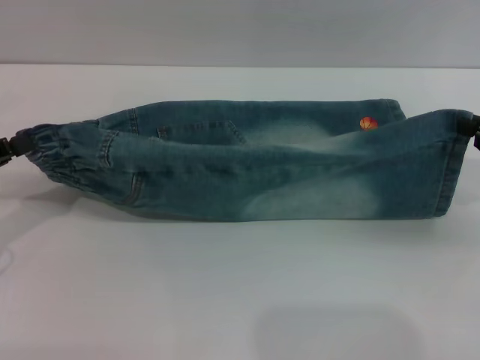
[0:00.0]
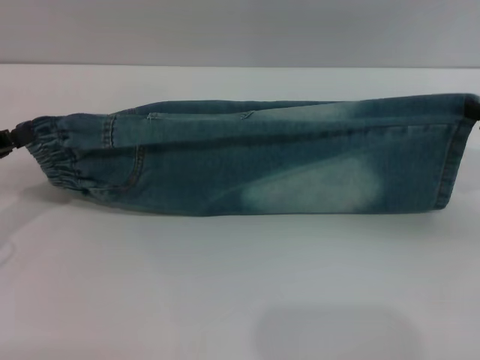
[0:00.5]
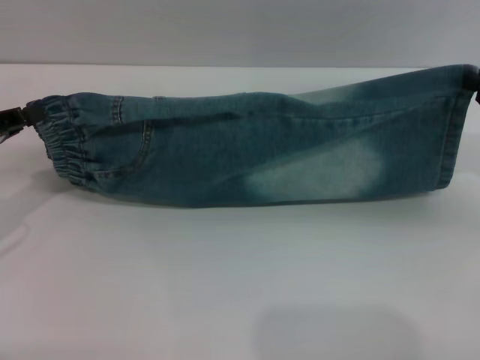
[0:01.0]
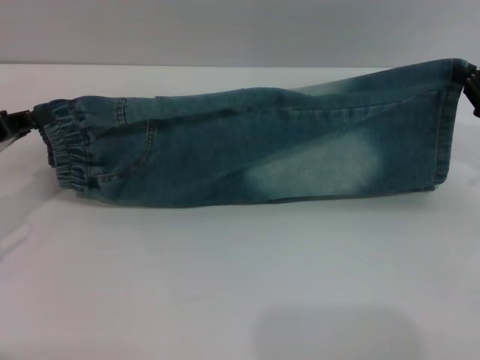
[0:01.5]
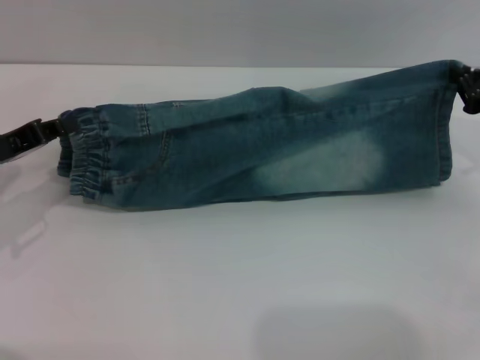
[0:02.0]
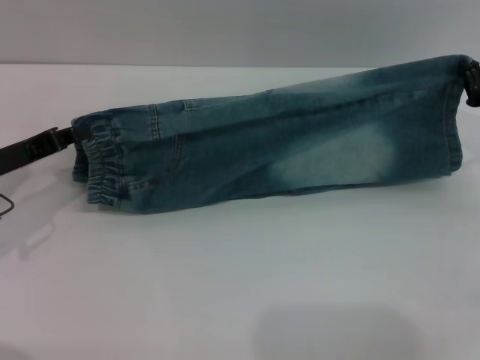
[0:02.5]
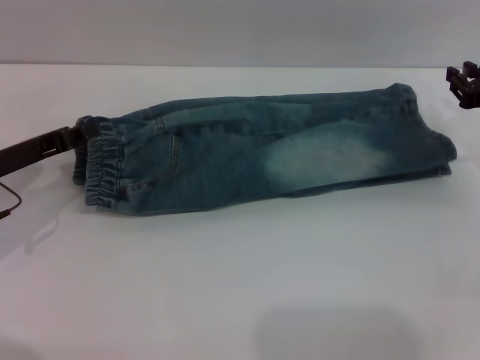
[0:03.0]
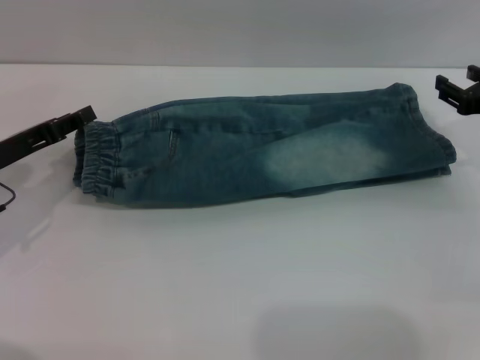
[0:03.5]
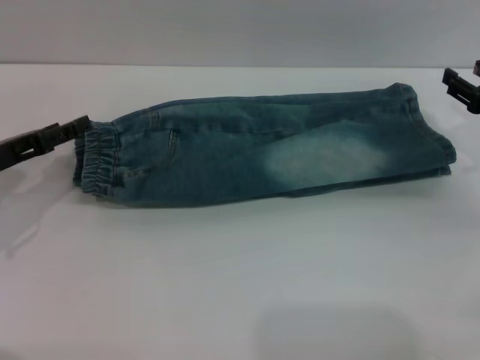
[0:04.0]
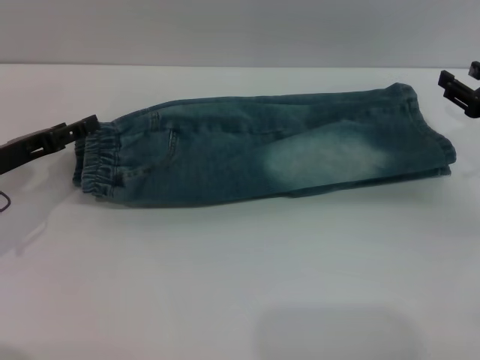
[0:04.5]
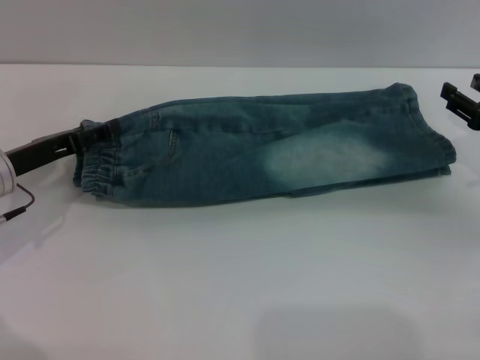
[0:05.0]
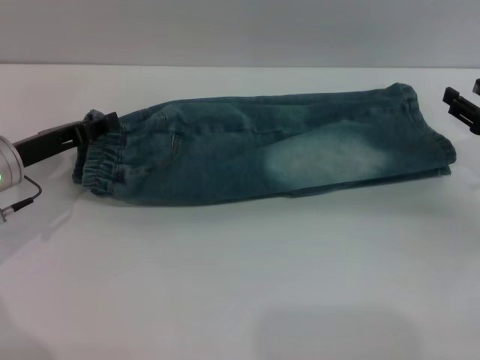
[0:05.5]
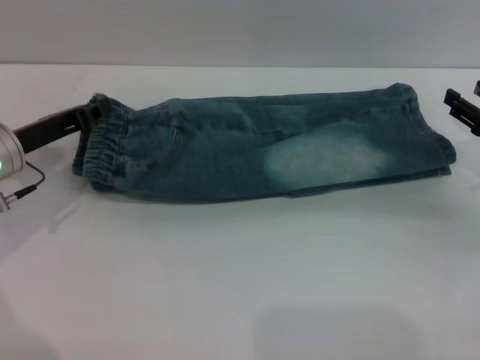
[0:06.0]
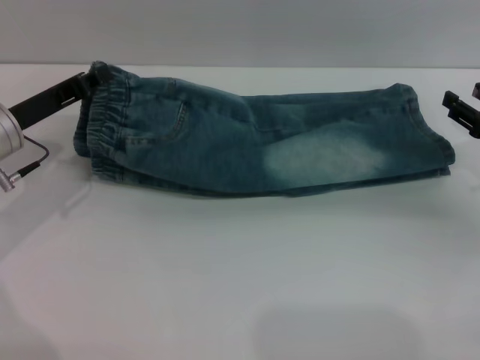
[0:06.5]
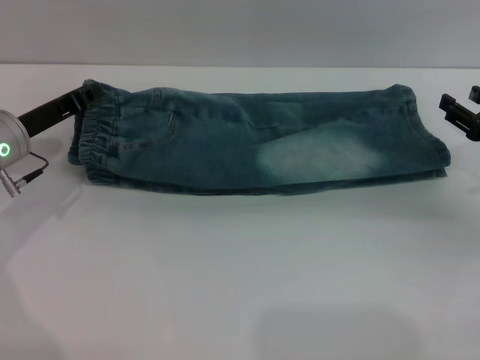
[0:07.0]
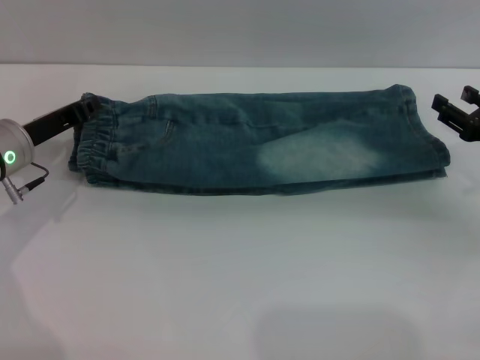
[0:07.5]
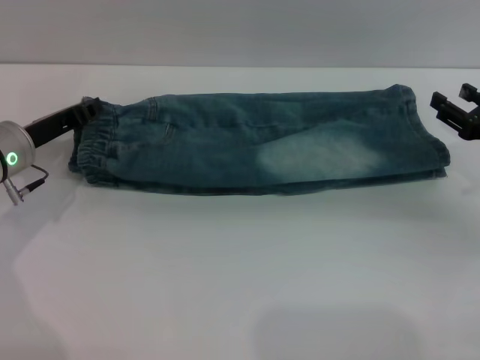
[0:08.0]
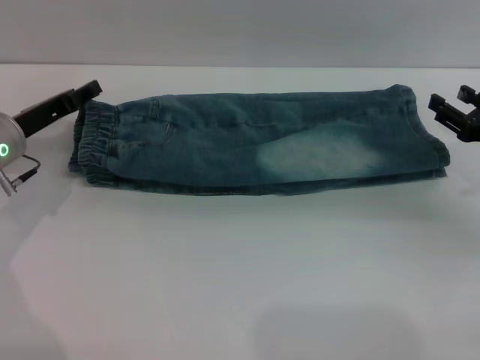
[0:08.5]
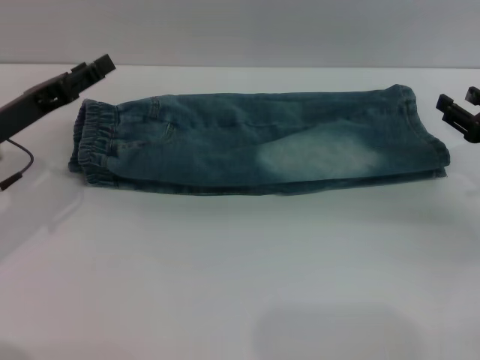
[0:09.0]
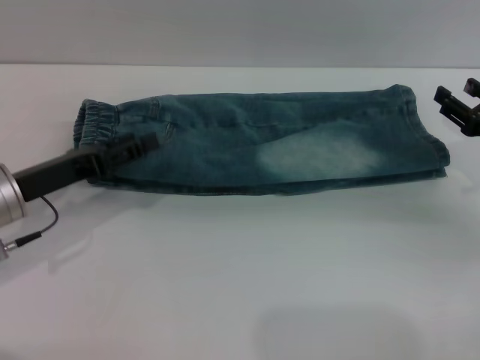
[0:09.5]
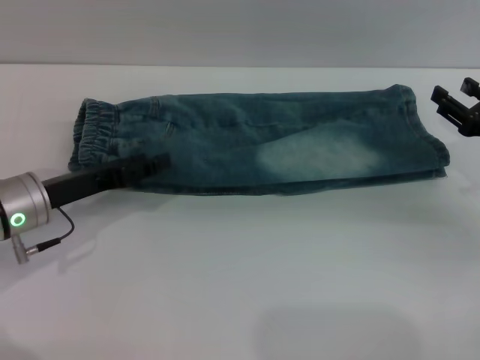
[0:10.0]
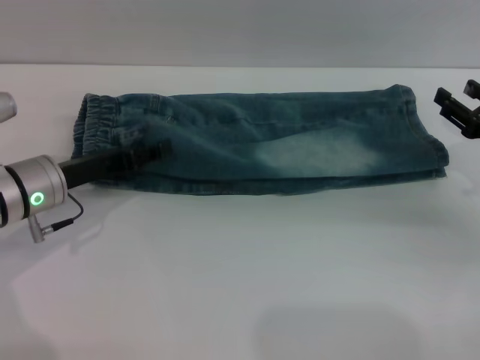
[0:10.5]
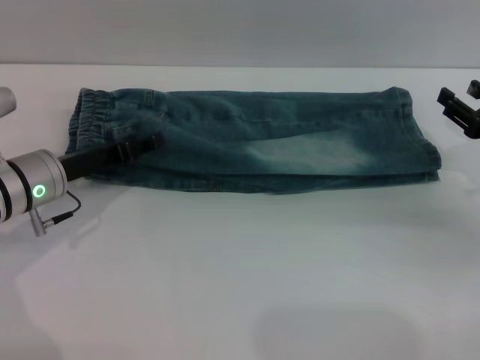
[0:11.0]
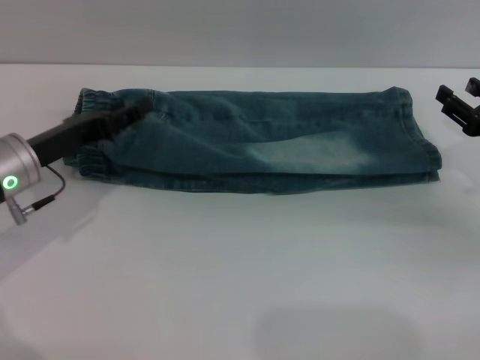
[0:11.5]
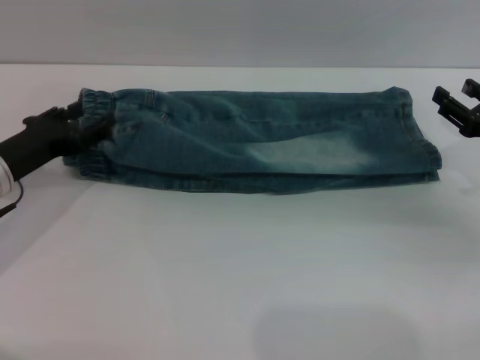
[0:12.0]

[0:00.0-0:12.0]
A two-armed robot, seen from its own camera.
Step, 0:00.0 to 0:04.0: Fold the bottom of the pants upward with both grippers.
0:00.0 to 0:02.0: Both grippers travel together forward, roughly 5 cm.
0:02.0 to 0:04.0: The right gripper opens its fingers; the left gripper opens up.
0:04.0 to 0:06.0: The left gripper shifts by approximately 5 cm, and closes up.
0:06.0 to 0:08.0: The grippers move only a little.
0:08.0 to 0:10.0: The left gripper shifts about 5 cm backward, and opens.

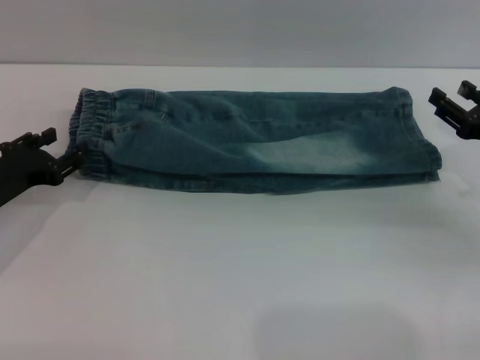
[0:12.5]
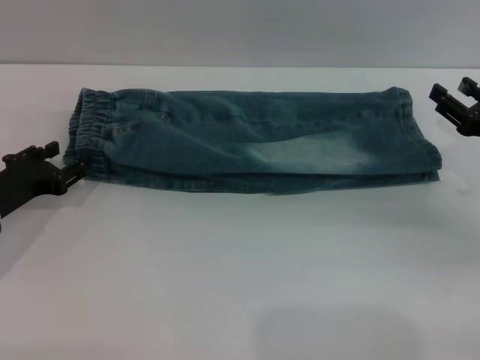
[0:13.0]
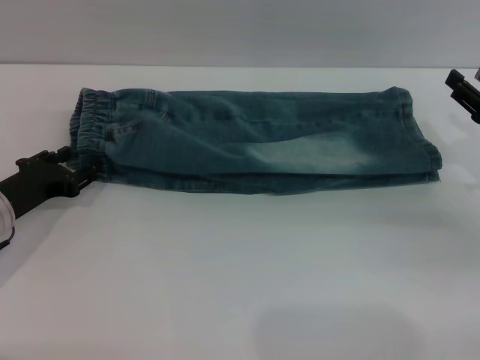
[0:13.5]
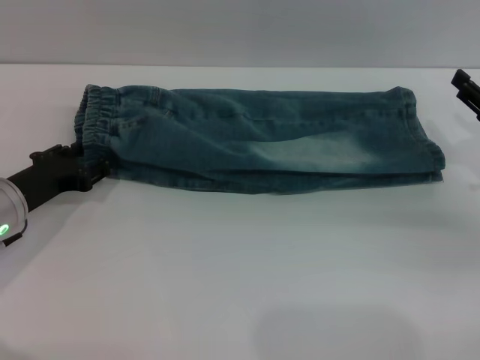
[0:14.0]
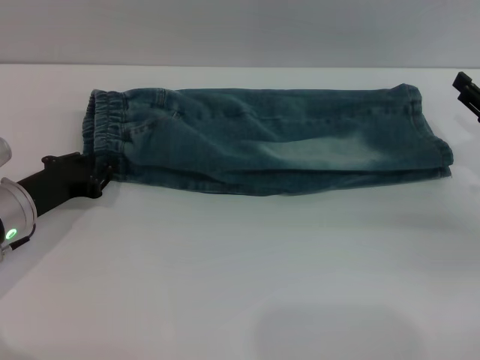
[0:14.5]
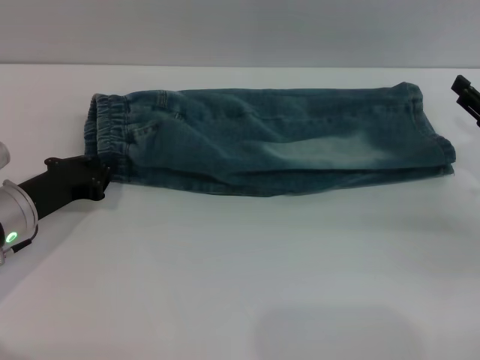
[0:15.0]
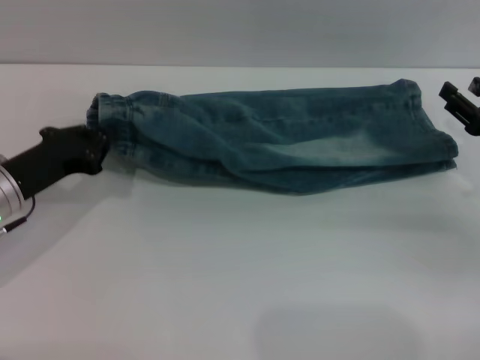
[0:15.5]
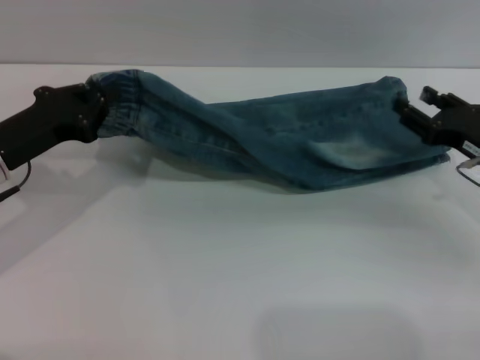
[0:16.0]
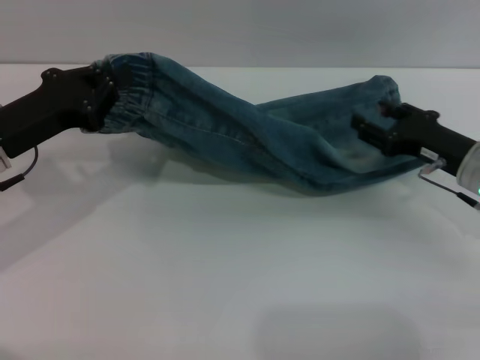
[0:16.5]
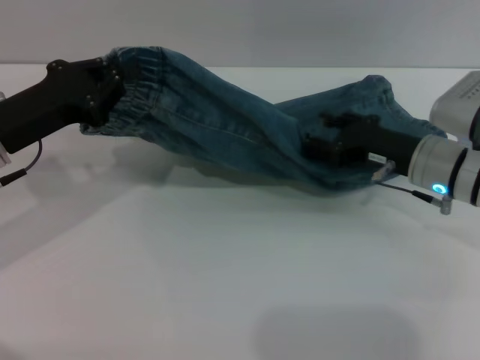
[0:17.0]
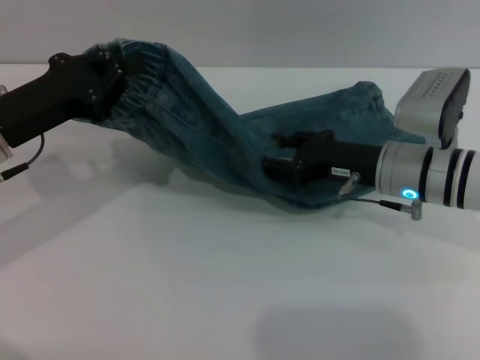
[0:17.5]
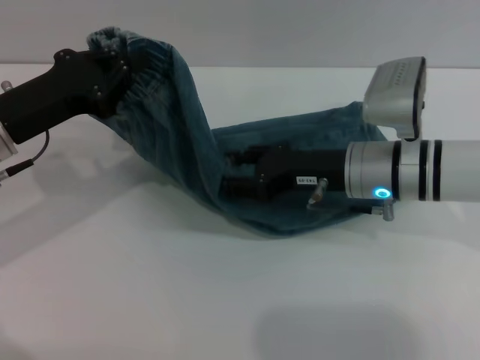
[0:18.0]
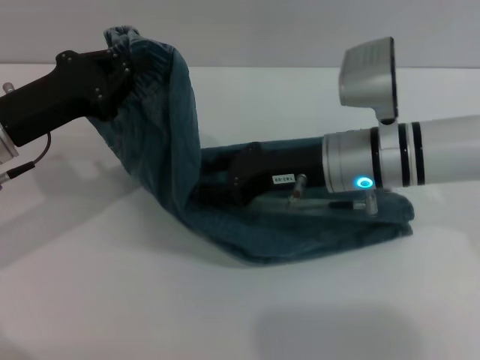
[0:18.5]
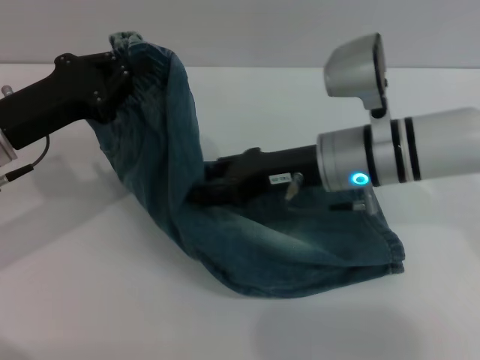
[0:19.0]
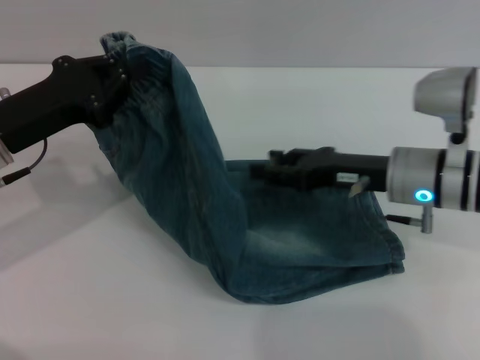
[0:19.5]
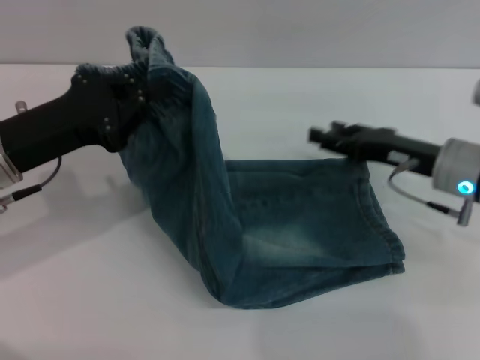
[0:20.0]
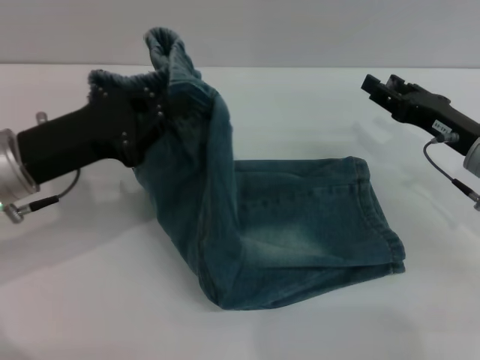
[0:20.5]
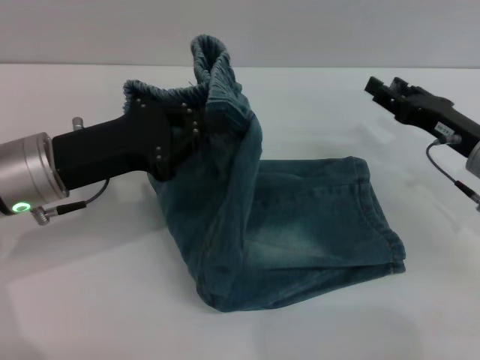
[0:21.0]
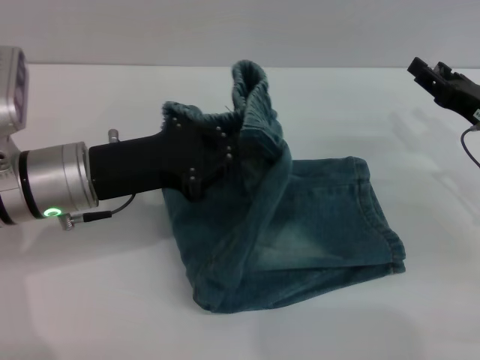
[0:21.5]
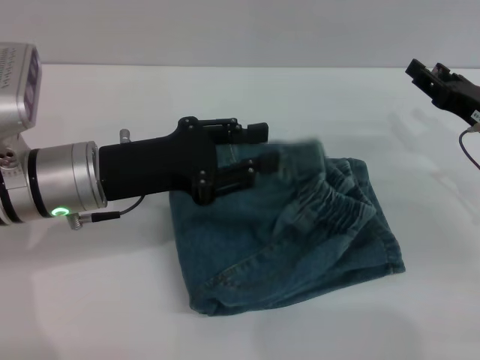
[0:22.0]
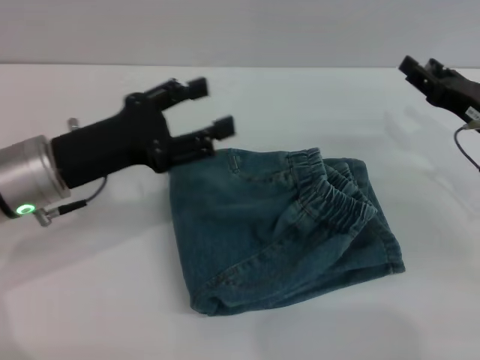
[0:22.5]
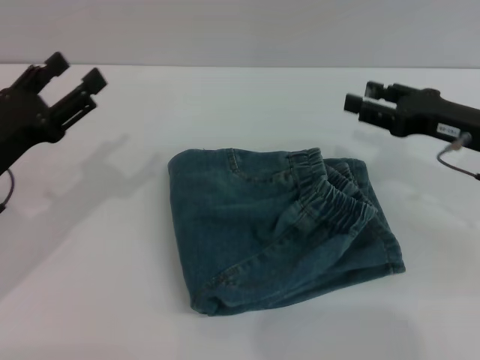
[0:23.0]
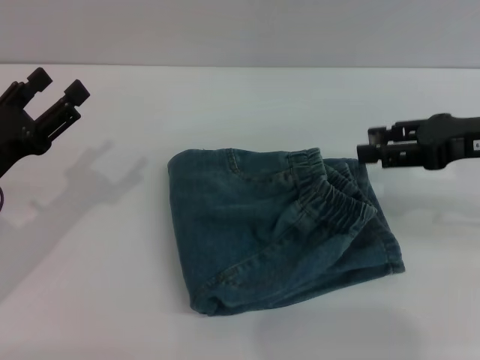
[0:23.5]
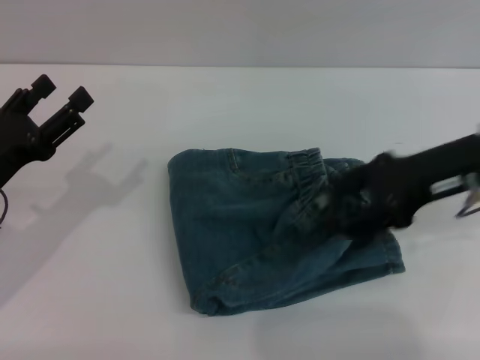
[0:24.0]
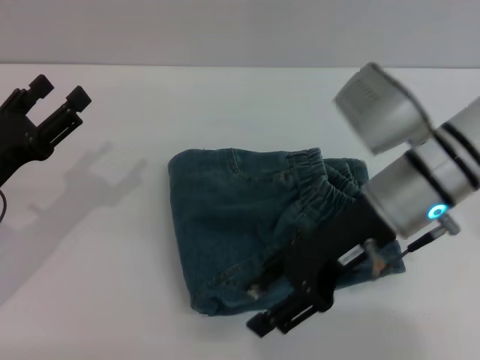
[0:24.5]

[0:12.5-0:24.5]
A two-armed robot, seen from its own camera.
Step, 0:12.5 to 0:22.0: Fold the pants from left to right with the left gripper.
0:12.5 to 0:14.5: The grippers move only a little.
0:14.5 to 0:16.5: The right gripper heads to the left, covering some 5 cm, while the left gripper goes roughly 10 cm upward, and closes up.
0:16.5 to 0:18.5: The right gripper travels to the left by some 15 cm.
0:18.5 to 0:20.5: The right gripper goes some 15 cm to the right.
0:20.5 to 0:22.5: The left gripper opens up.
0:22.5 to 0:24.5: The right gripper shifts some 15 cm to the left and upward. The left gripper goes some 10 cm to the left.

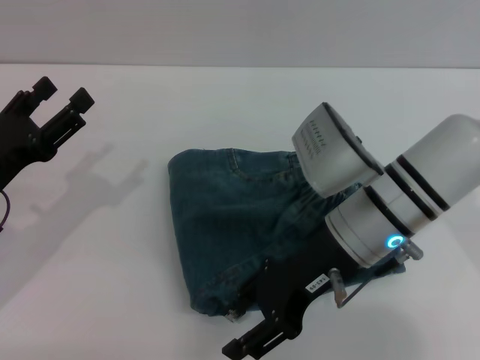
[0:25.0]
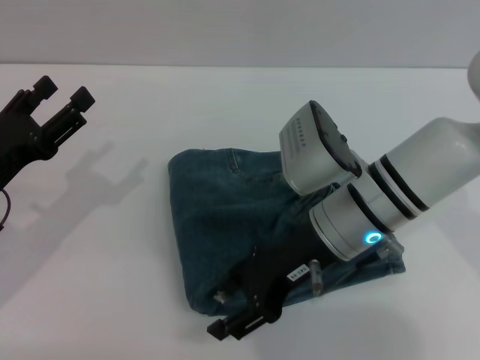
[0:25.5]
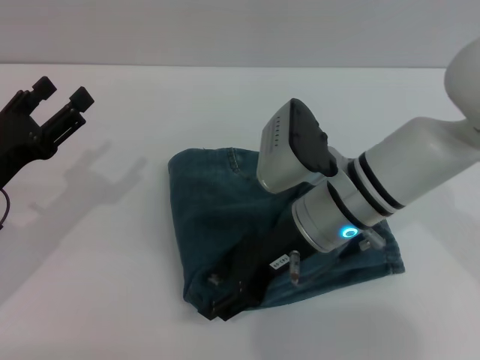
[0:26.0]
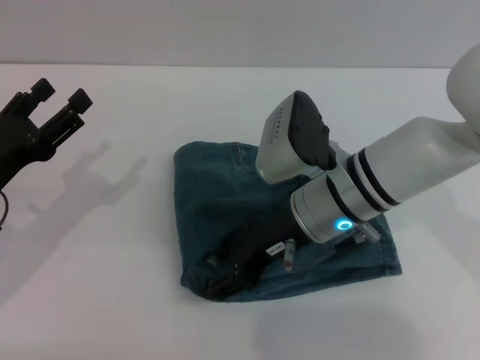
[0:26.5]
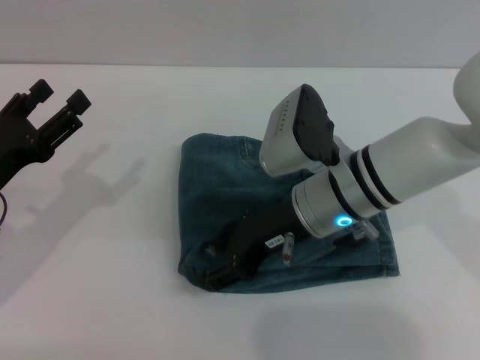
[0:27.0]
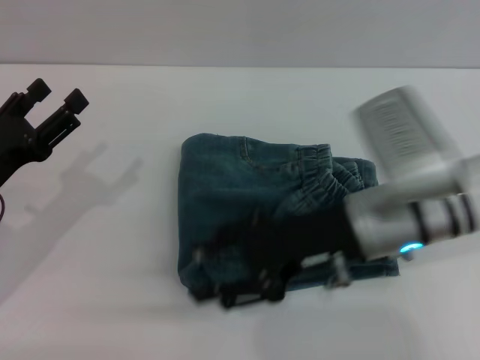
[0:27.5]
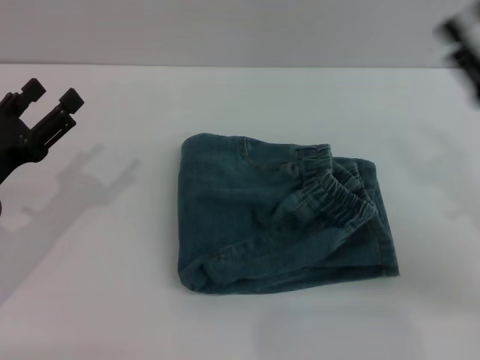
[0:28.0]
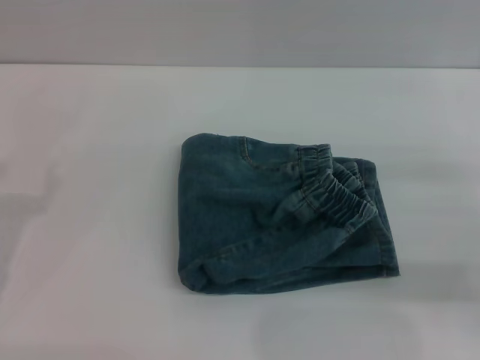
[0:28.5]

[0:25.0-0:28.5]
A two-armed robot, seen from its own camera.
Step, 0:25.0 to 0:27.0: Place the folded trousers onto the center area with the right grippers.
0:27.0 to 0:28.5: The left gripper heads backward, covering roughly 5 cm. The right gripper moves to the right, about 25 cm.
